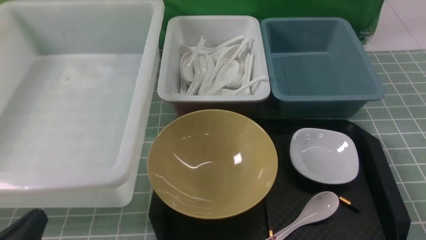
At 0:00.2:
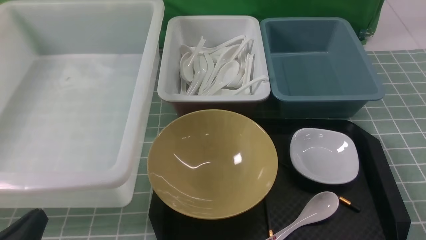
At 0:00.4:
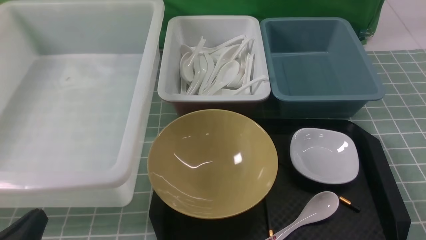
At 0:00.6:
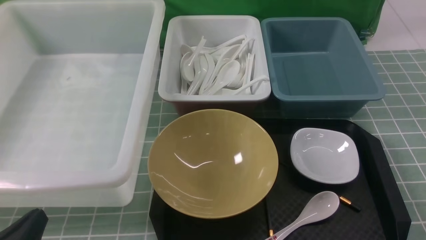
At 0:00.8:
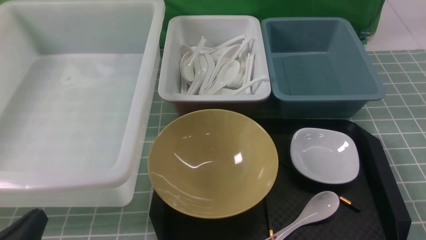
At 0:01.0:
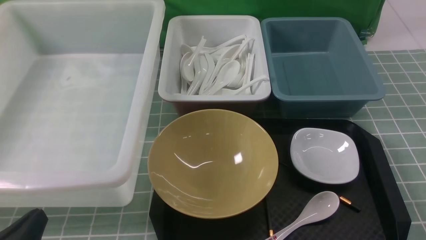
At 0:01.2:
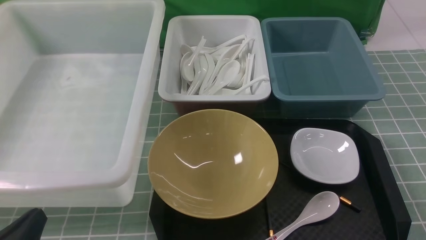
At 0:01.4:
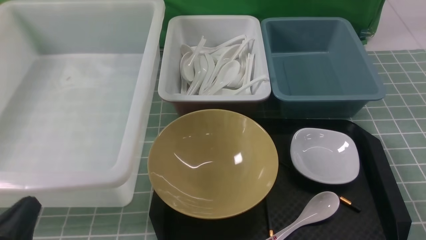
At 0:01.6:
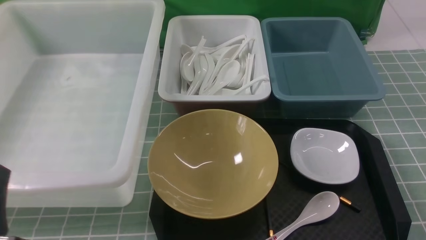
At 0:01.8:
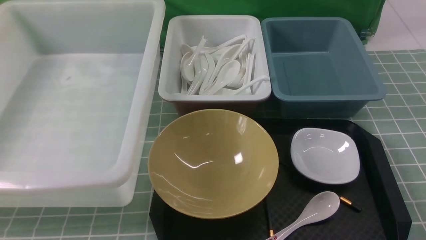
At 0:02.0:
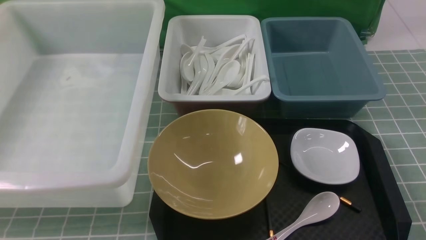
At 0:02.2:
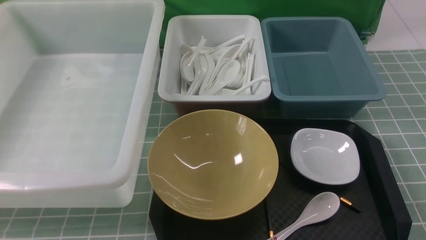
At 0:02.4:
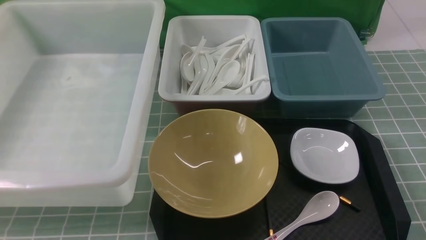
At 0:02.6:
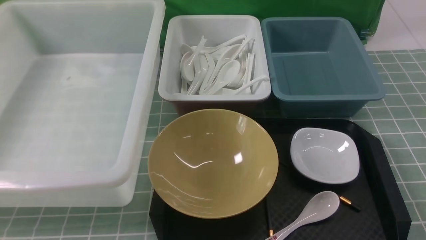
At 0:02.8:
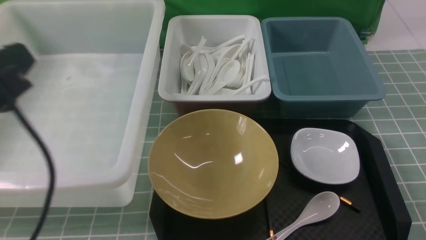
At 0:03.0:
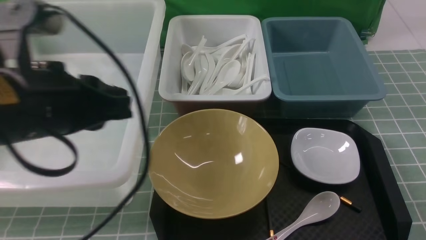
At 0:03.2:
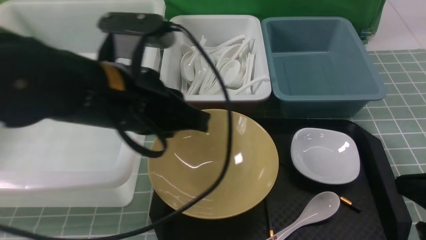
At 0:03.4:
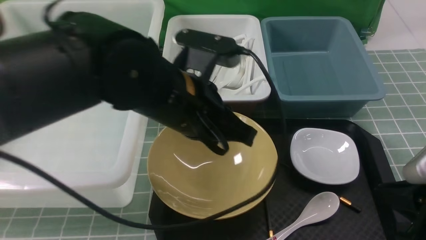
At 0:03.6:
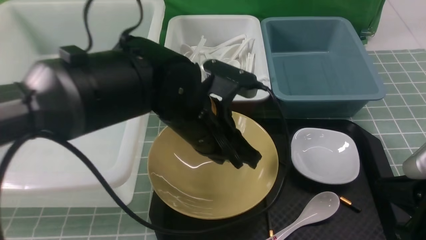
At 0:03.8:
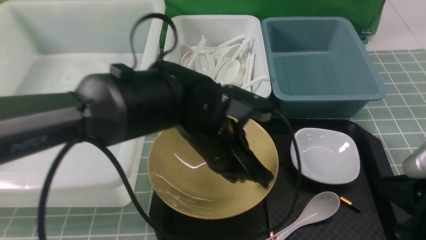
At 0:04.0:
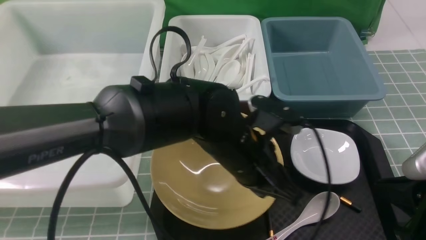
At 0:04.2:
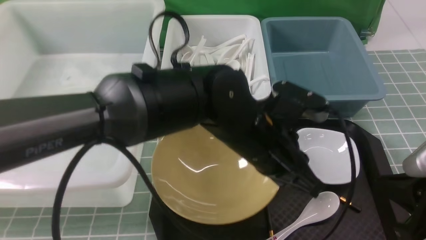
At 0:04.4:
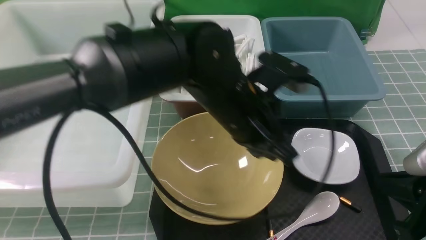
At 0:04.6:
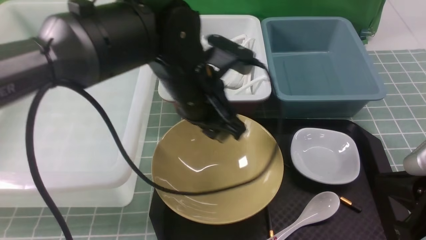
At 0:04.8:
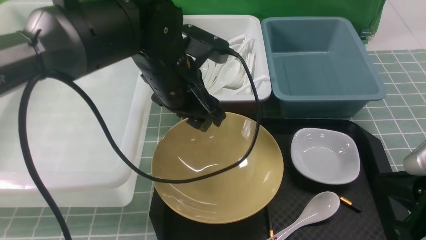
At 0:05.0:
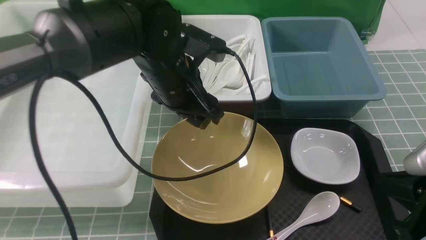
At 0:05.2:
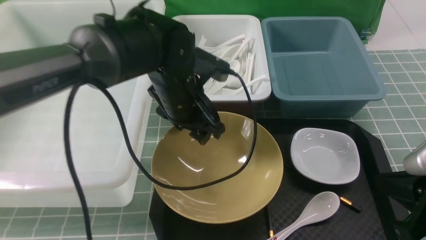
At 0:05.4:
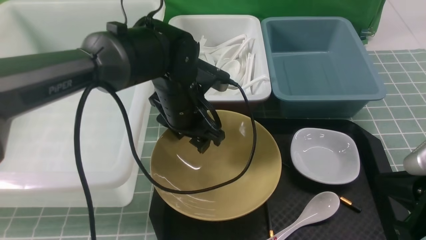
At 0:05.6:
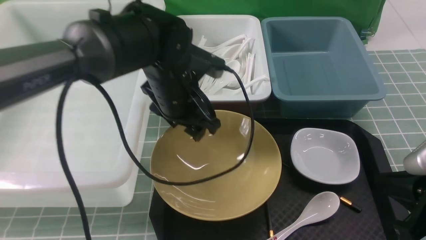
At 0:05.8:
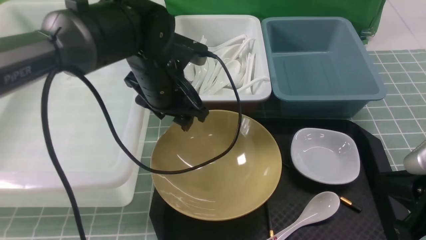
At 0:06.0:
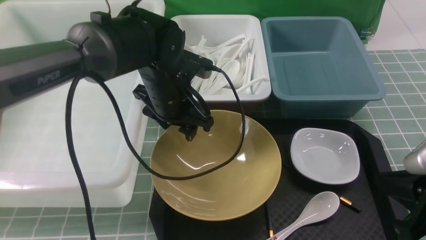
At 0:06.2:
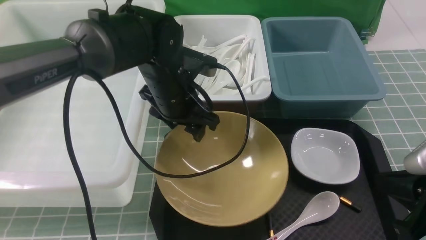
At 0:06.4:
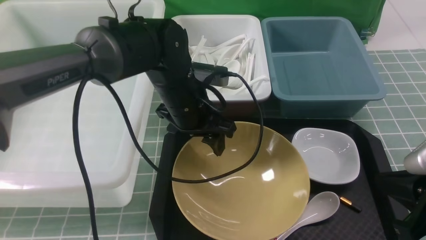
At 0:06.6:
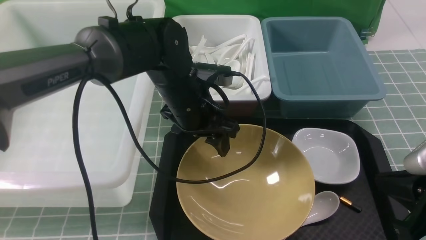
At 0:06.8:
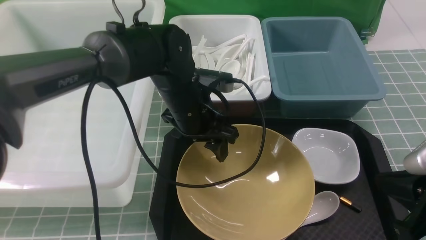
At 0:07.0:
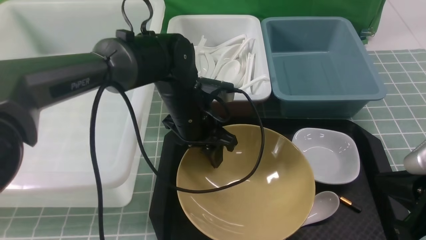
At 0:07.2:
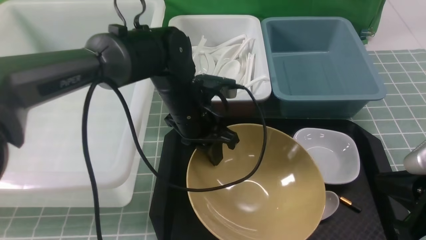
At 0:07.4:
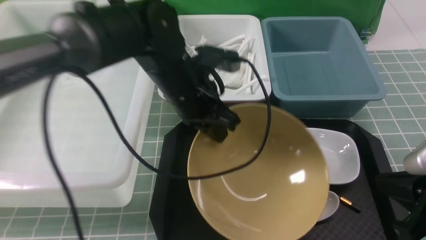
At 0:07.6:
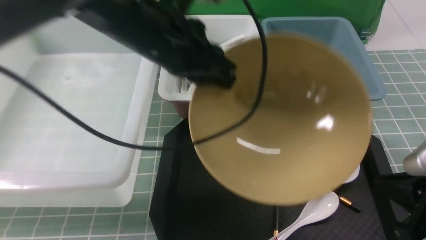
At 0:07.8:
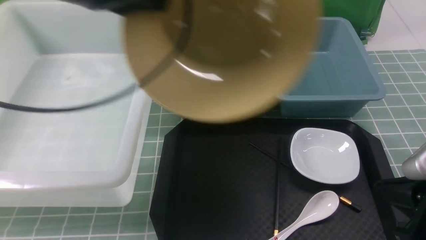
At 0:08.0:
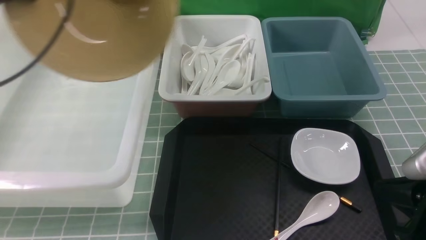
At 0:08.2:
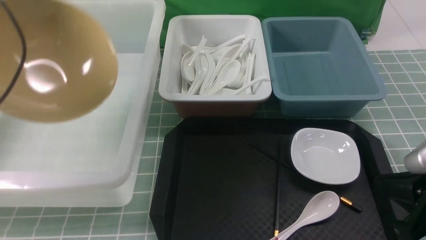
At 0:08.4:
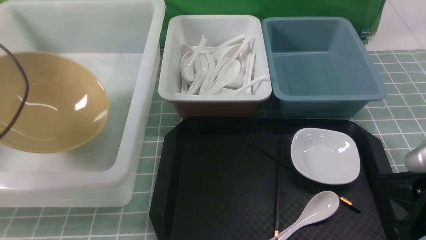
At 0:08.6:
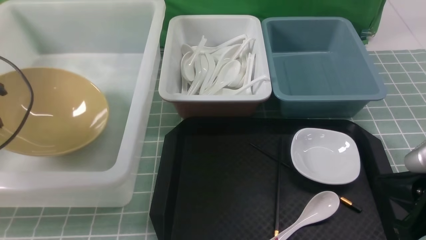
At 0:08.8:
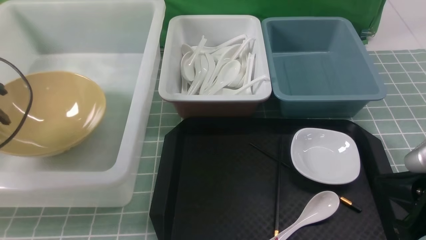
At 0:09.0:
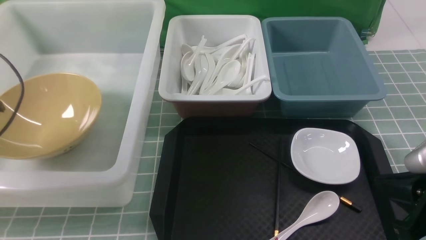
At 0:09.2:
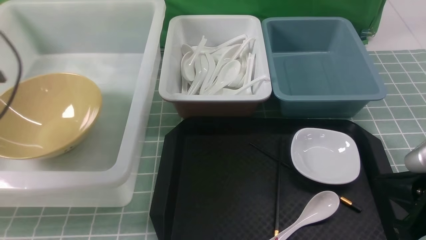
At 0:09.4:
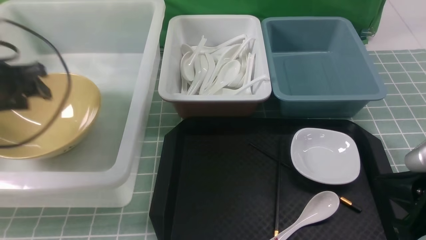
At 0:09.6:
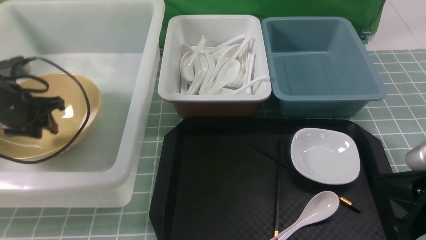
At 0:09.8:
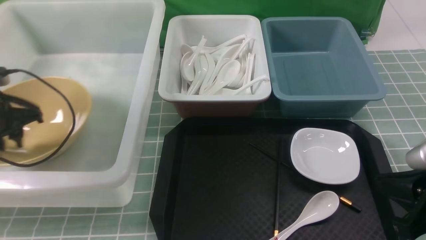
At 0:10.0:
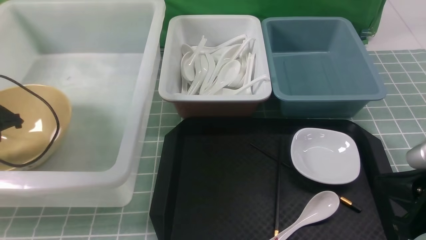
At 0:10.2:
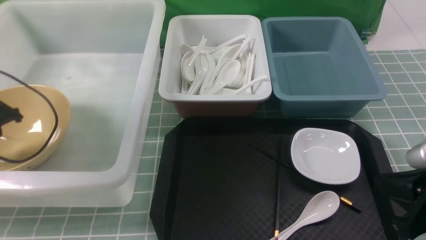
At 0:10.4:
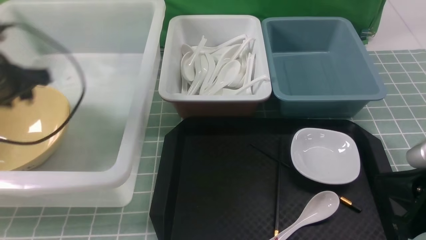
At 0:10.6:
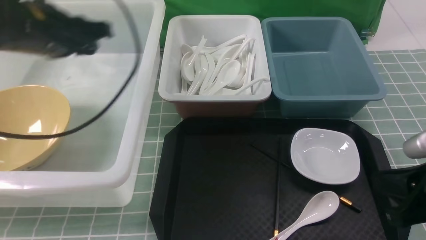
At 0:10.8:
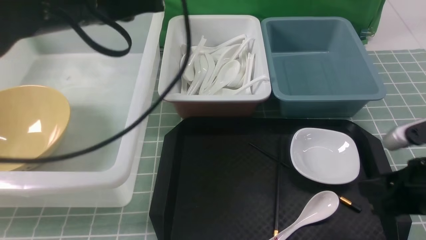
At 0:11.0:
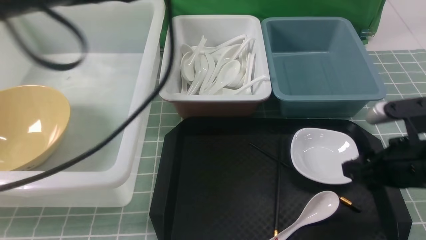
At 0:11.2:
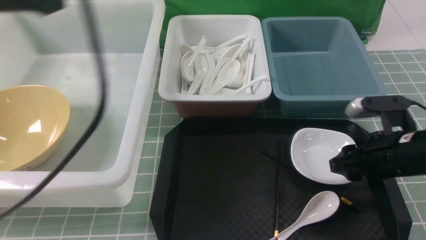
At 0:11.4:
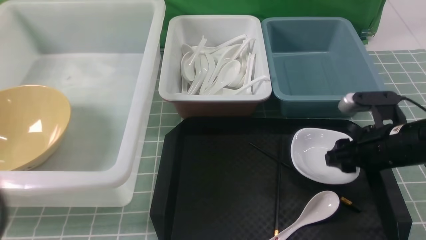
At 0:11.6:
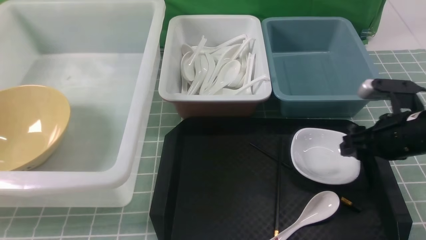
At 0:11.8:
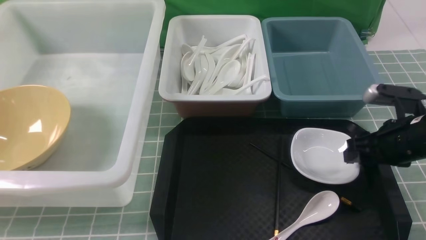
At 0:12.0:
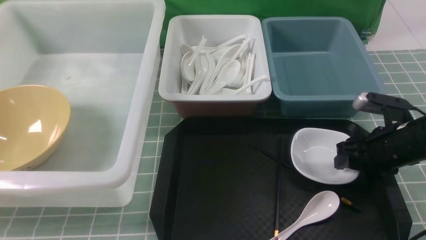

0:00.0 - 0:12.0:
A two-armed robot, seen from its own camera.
Task of the whole recording: on blue table put chopsticks spoon bowls plates into blue grey white boxes.
Step, 0:00.0 - 0:07.2: use the left arm to grab the yellow noodle bowl on the left.
Step, 0:07.6 - 0:09.0: use the left arm to put the noodle bowl into the large storage box on the left.
0:01.6 - 0:03.0: The right gripper goes roughly 10 cm forward and upward, and closes its fingers. Meanwhile the left gripper shifts approximately 20 cm forward, upward and to the right.
0:03.0 - 0:04.4: The left gripper travels to the right, forward and downward by about 20 cm. The right gripper moves about 5 cm.
0:04.4 - 0:06.0: The left gripper travels to the left and forward by some 10 cm, and opens its fingers.
0:06.0 - 0:07.6: The left gripper goes about 15 cm upward, and closes its fingers.
0:07.6 - 0:09.0: The left gripper shifts some 30 cm to the left, and opens its fingers.
0:09.0 - 0:10.4: The left gripper goes roughly 10 cm to the right, and closes.
0:10.4 - 0:12.0: The right gripper heads forward and downward, covering some 15 cm, and opens. Meanwhile the left gripper goes approximately 30 cm backward, and closes.

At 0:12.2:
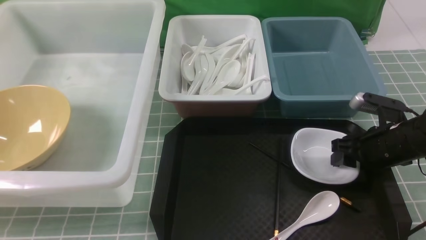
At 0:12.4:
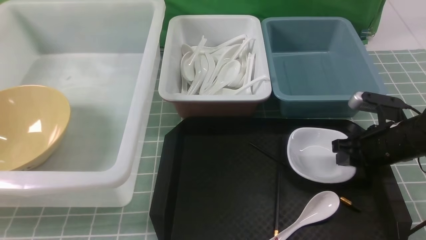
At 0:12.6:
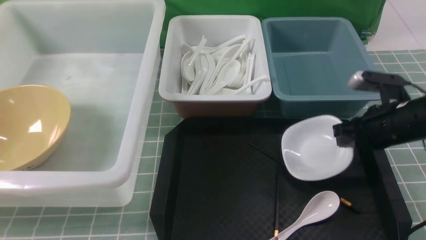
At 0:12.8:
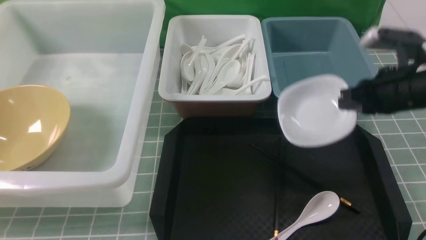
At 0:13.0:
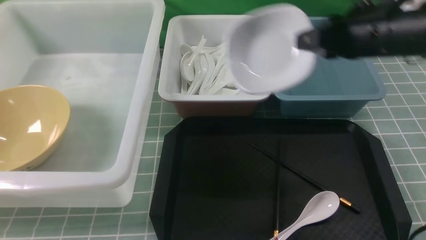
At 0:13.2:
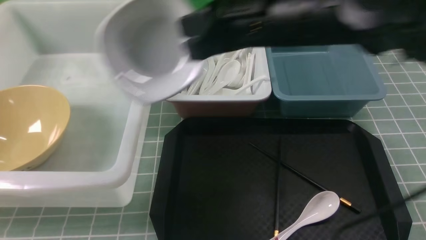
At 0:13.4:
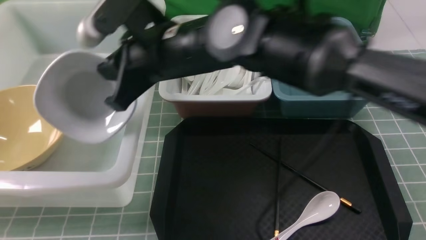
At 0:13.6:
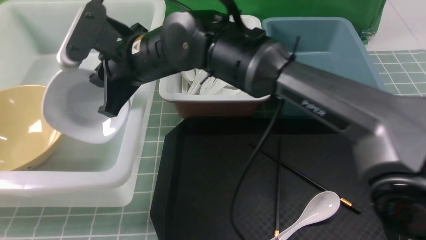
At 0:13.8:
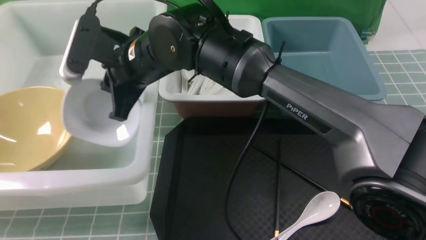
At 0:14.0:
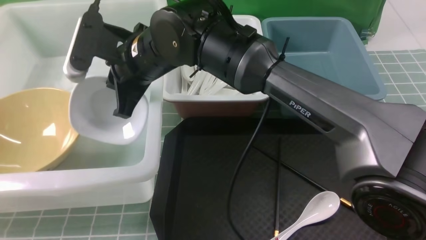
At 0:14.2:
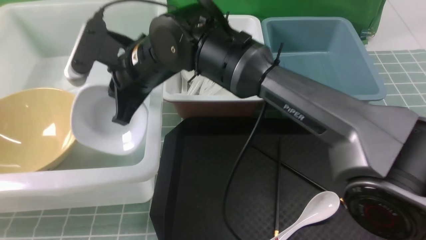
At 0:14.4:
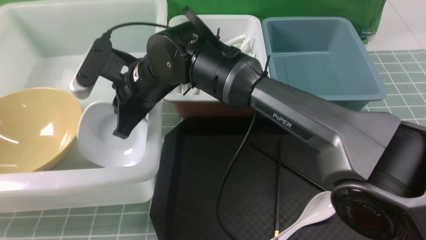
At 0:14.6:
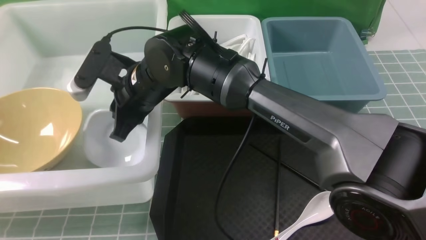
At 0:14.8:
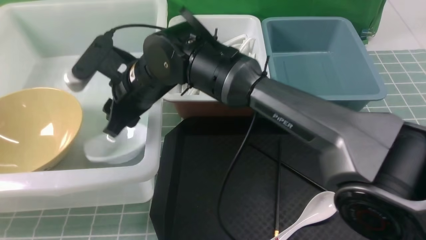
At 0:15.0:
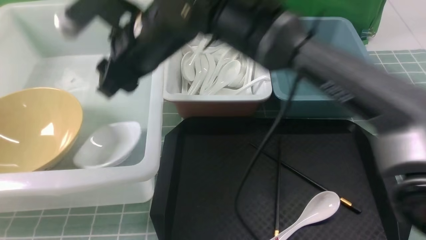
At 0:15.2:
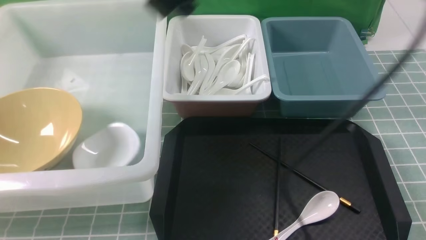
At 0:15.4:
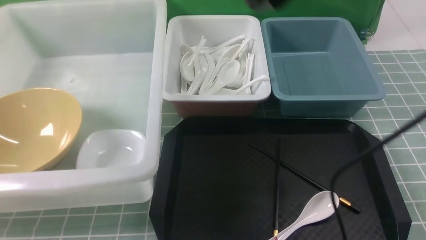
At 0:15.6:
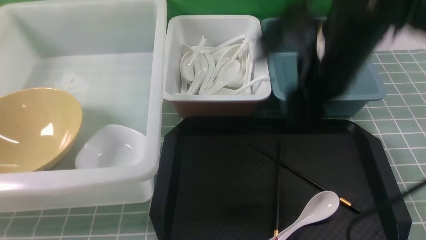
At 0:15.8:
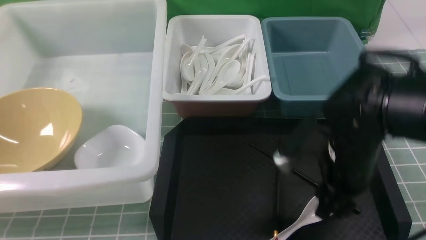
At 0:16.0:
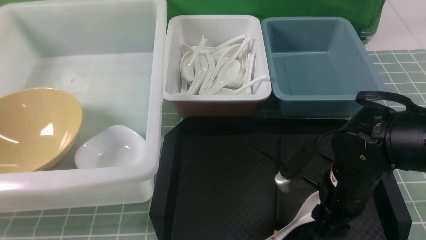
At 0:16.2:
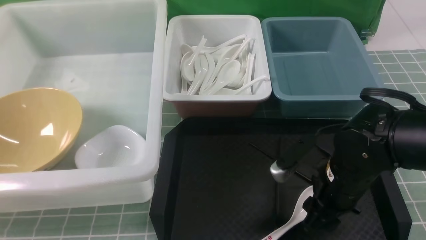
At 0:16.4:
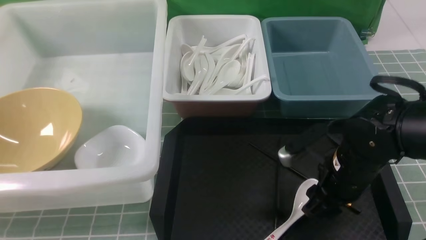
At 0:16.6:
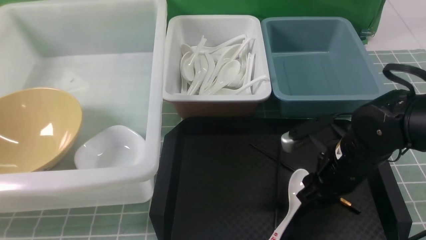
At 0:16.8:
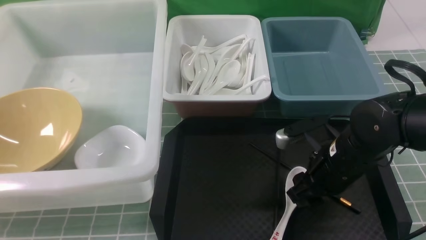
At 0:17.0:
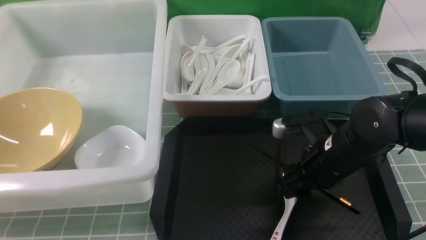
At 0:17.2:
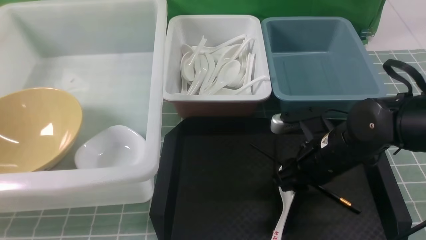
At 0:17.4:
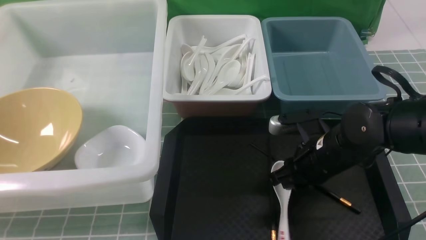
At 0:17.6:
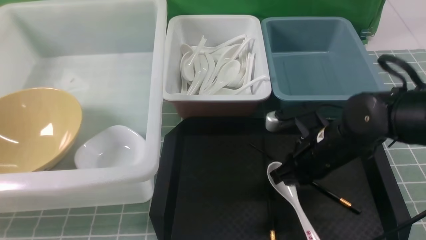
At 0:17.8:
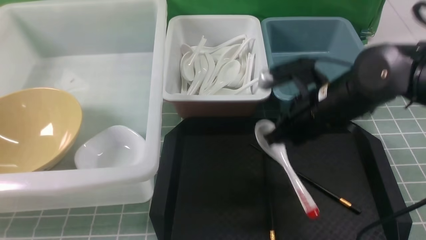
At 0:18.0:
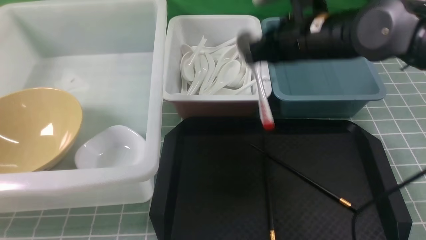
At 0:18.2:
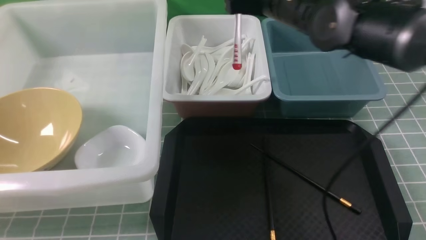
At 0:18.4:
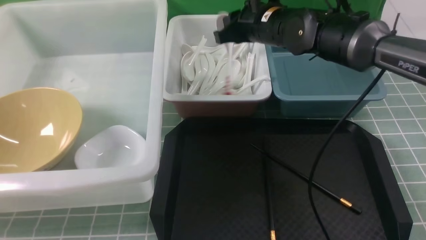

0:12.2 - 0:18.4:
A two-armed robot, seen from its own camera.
Task of the whole recording: on blue table put chopsticks spoon bowls plates into blue grey white boxes.
Step, 0:12.8 - 0:14.8: use the right arm to put the plate into the large storage box on the left.
Step, 0:15.2 - 0:17.6: use the right arm to grab the soup spoon in the middle.
0:12.2 - 0:13.8: The right gripper shifts about 35 cm to the left, and closes up.
0:13.8 - 0:15.4: The right gripper shifts approximately 20 cm to the right and upward, and opens up.
0:15.4 - 0:16.8: The right gripper shifts approximately 20 cm downward.
0:16.8 - 0:18.4: The right gripper goes about 20 cm forward and upward, and closes its fingers.
